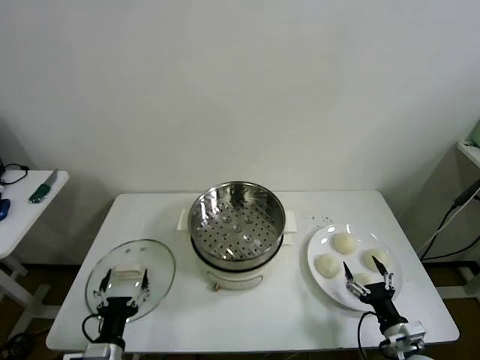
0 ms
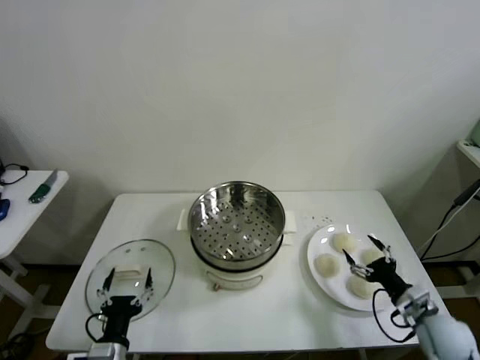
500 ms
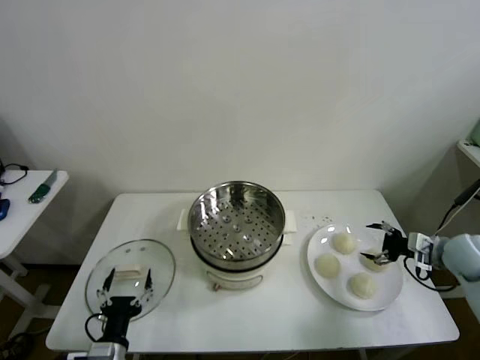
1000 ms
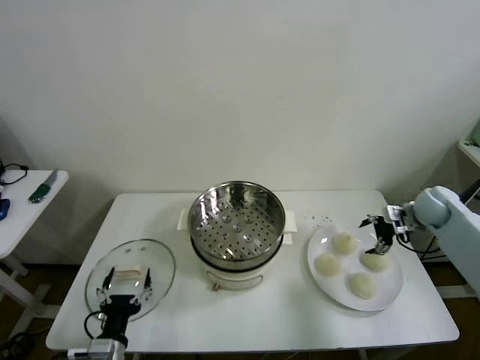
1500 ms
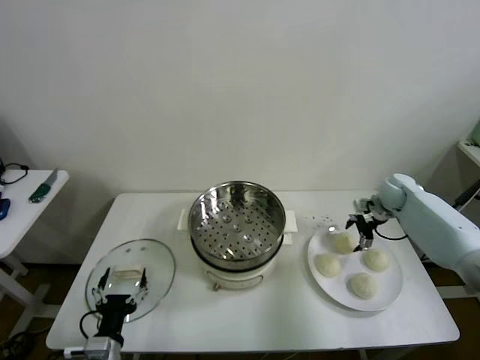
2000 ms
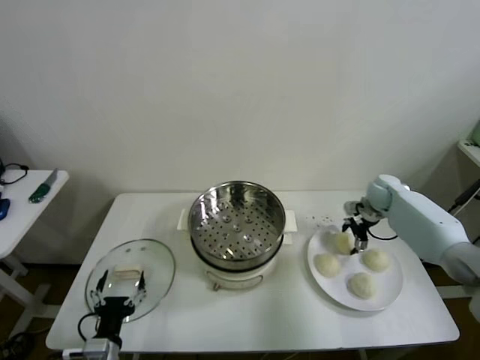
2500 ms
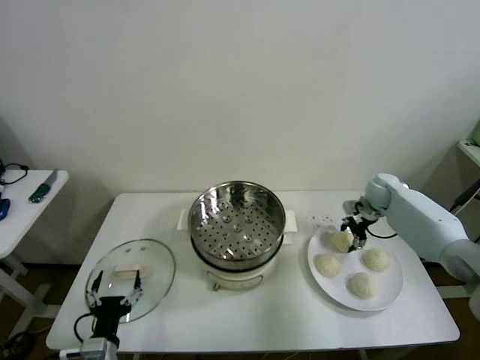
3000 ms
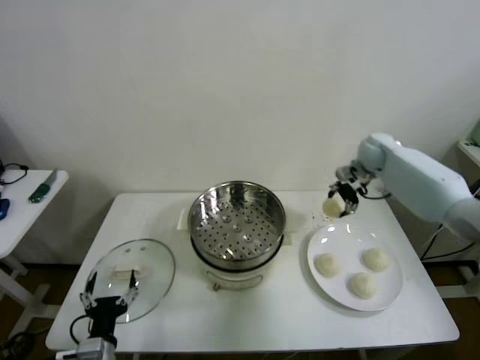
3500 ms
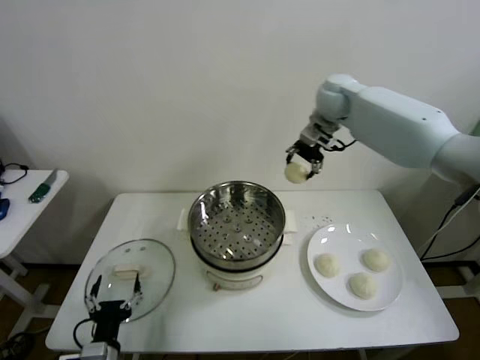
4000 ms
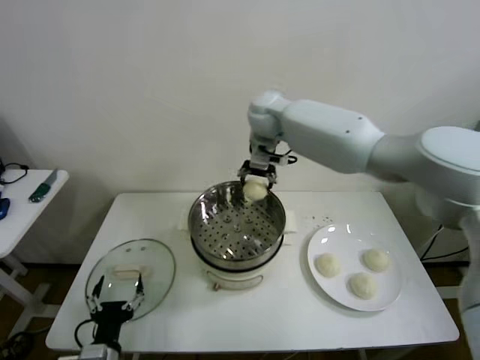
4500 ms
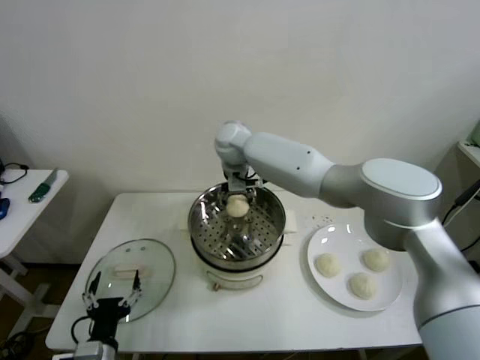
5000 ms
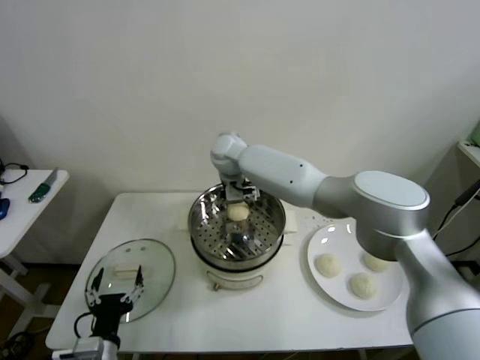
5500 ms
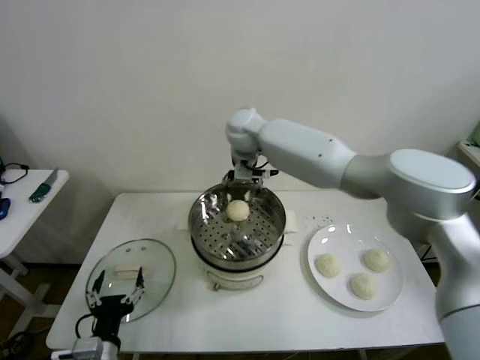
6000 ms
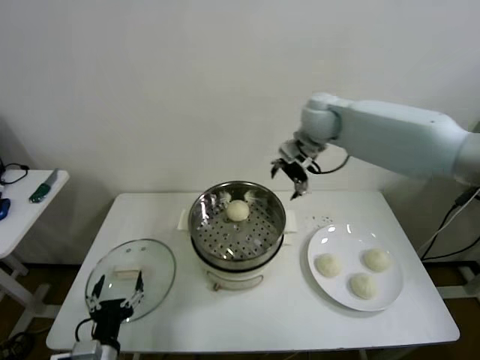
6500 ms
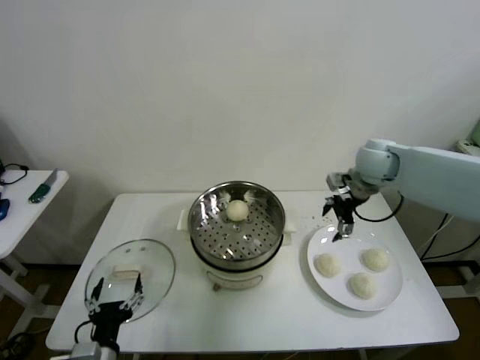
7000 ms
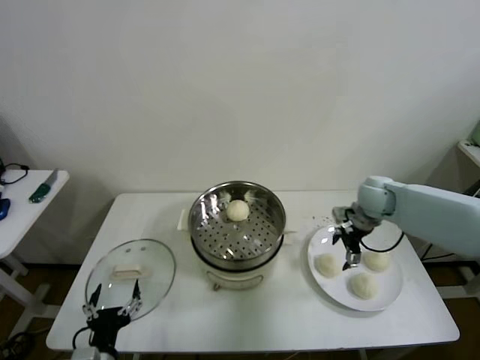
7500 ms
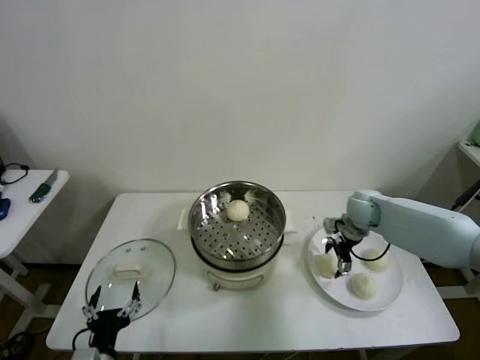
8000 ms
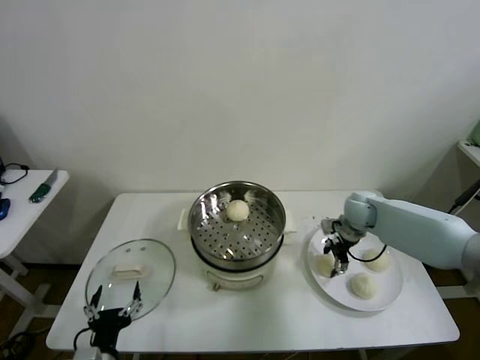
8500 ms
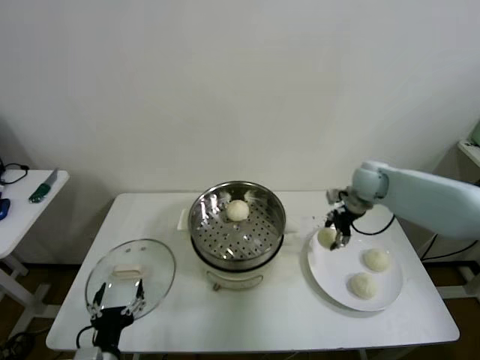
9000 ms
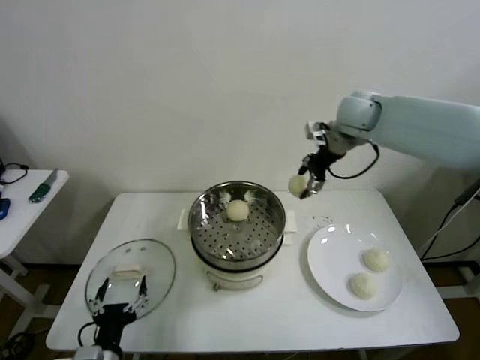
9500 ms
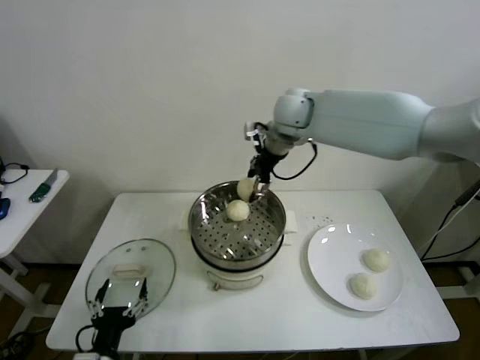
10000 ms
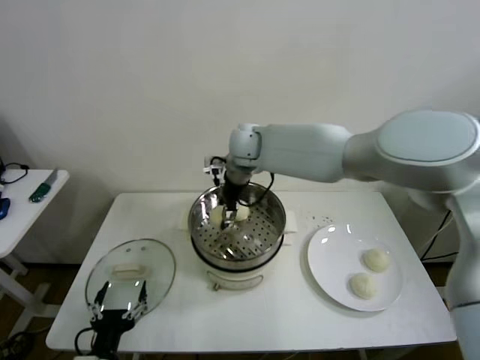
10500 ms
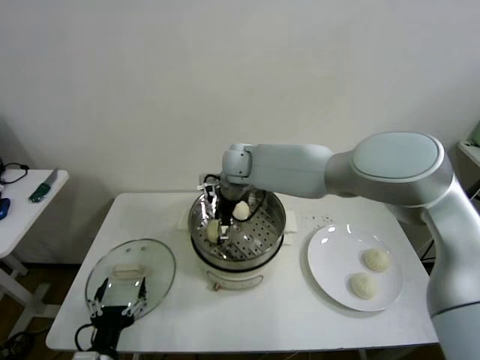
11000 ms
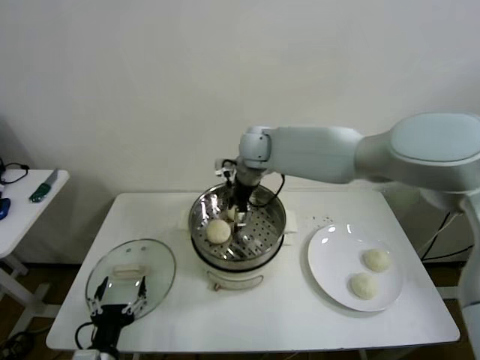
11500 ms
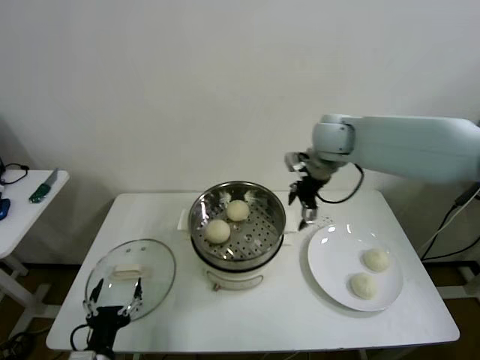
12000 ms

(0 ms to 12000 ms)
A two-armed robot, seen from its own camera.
Step, 0 ms - 2500 ms: Grasp the baozi in the plate with right gripper.
Step, 3000 ms - 5000 ms: Place the baozi on the steamer with right gripper.
Step, 5500 ms - 8000 ms: Grasp the baozi in the plate with right gripper.
Step, 8500 ms - 11000 ms: Place the baozi on the steamer with right gripper.
2000 ms - 4000 ms: The right gripper shifts approximately 35 cm upward and to the left, and closes up.
4000 ms - 6000 ms: The right gripper shifts roughly 15 cm to the left, and opens up.
6000 ms - 8000 ms: The right gripper is displaced to the right and downward by about 35 cm.
8000 ms - 10000 ms: The right gripper moves upward and to the left, roughly 35 cm, and closes up.
10000 ms - 12000 ms: The right gripper moves to the right, some 15 cm, and opens up.

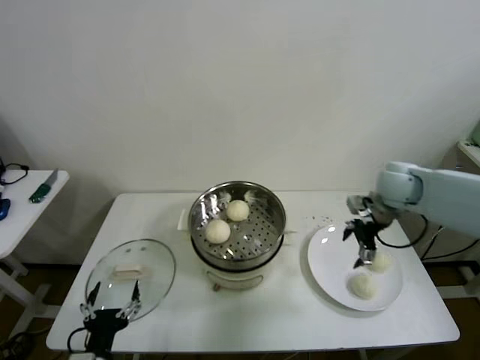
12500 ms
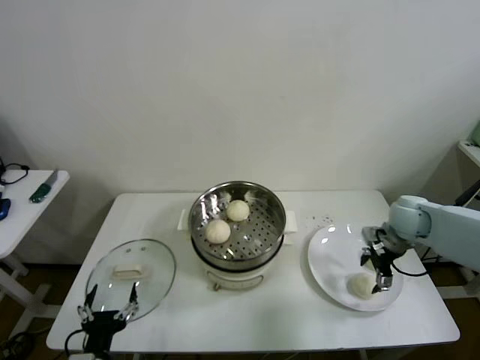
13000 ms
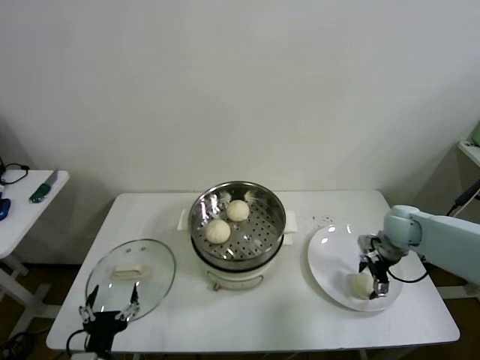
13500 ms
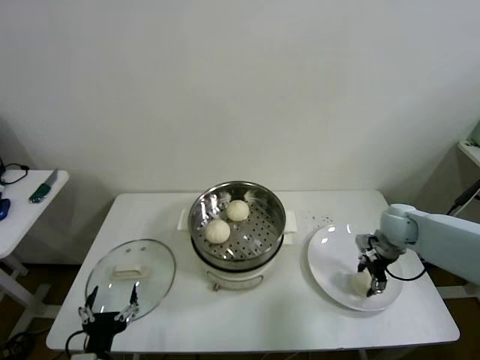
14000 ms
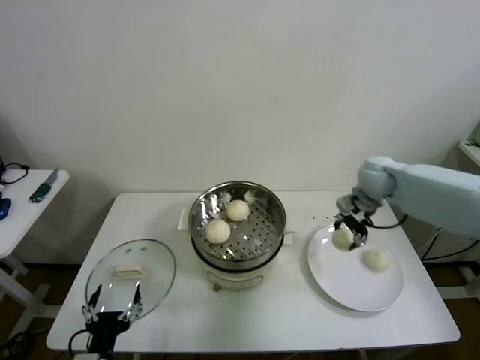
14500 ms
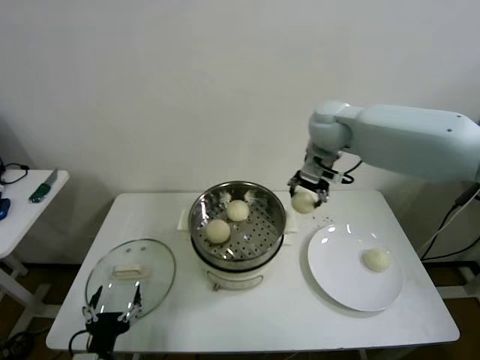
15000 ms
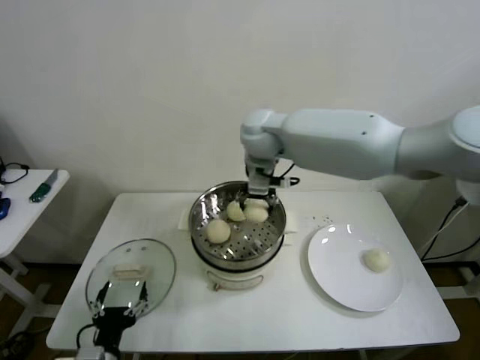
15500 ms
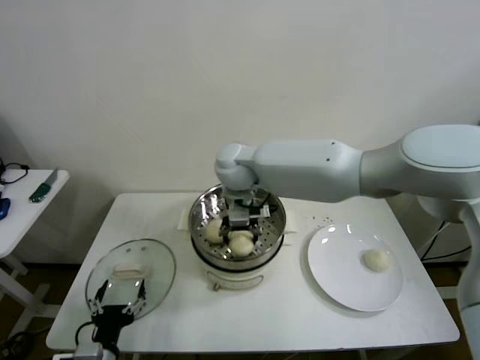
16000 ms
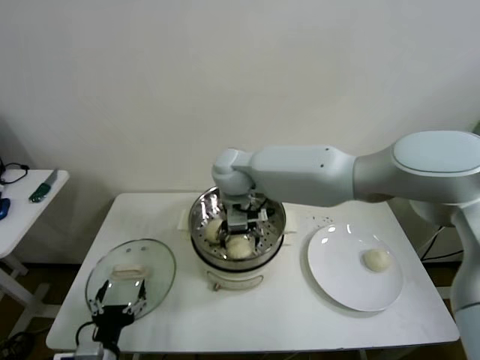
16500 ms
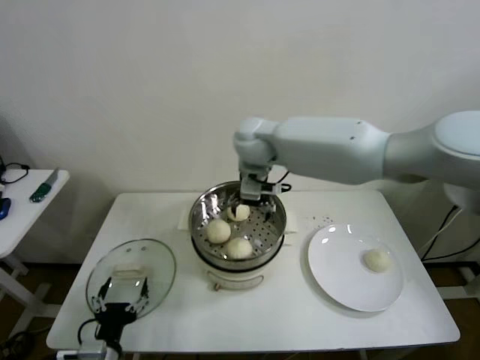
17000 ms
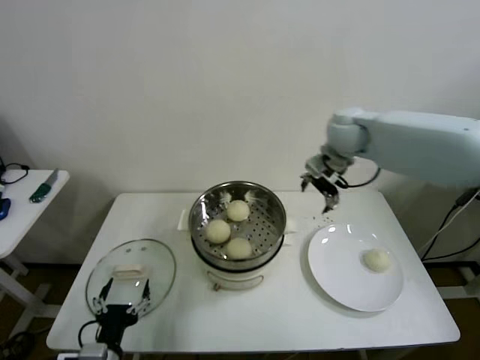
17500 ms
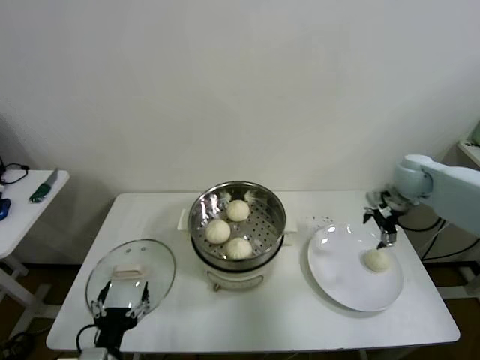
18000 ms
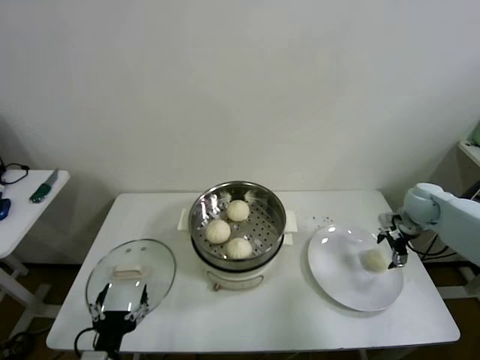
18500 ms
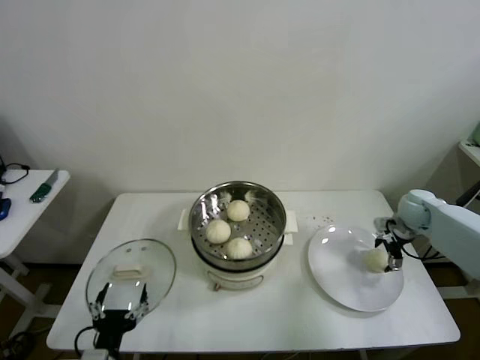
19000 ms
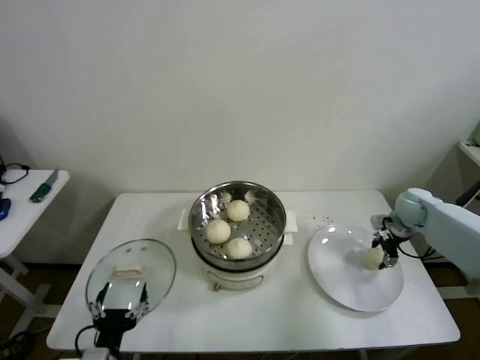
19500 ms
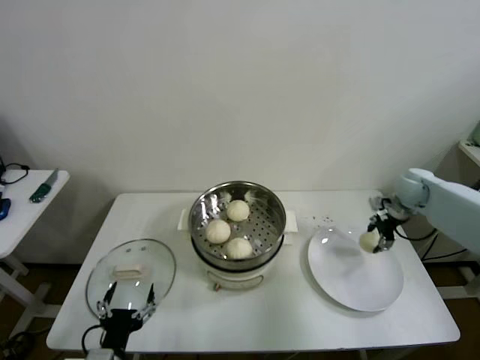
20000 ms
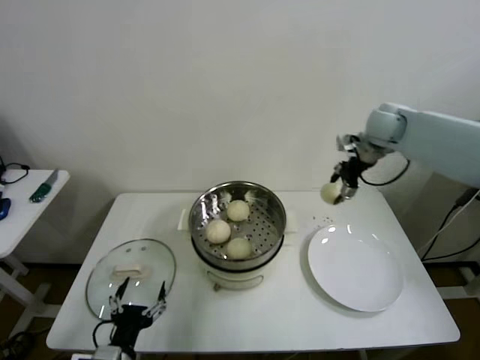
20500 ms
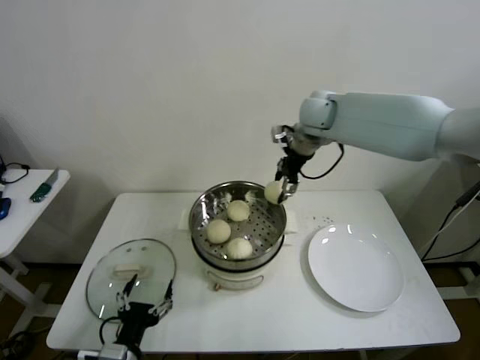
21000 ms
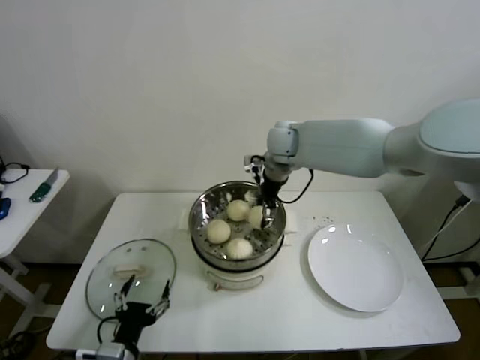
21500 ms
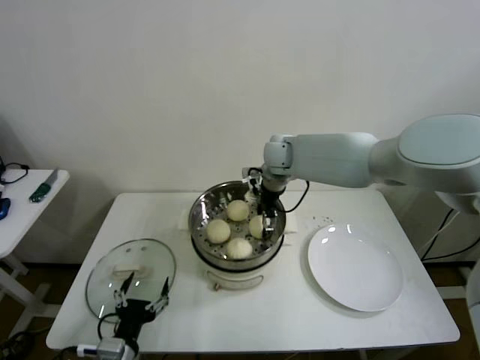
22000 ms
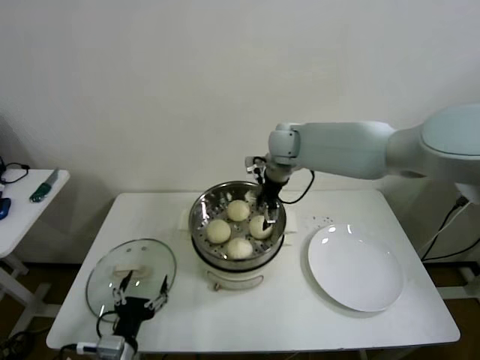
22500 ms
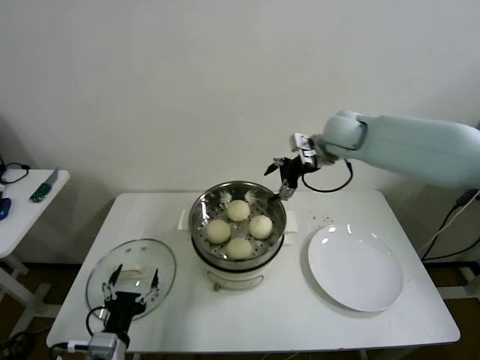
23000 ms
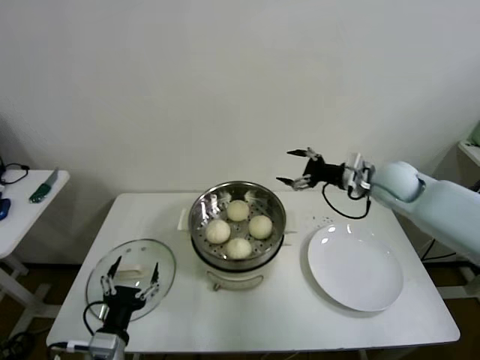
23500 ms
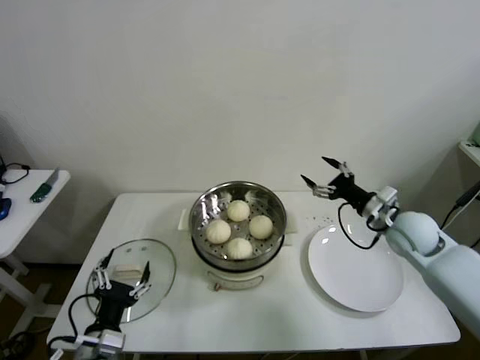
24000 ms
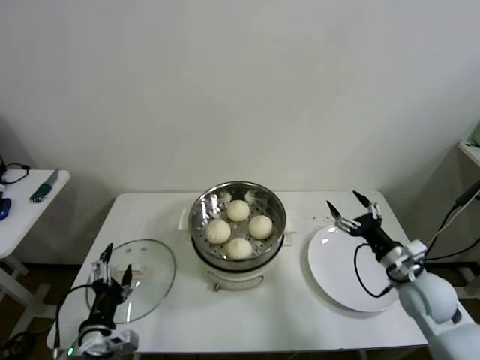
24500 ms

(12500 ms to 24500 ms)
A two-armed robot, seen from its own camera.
Step, 14000 ms - 16500 ms: Place the baozi on the steamer with right gripper.
Step, 17000 ms - 19000 ms: Grasp the baozi in the plate with right gripper.
Step, 20000 ms - 22000 ms: Place the baozi on the steamer with right gripper.
12500 ms - 14500 ms: The right gripper travels forward and to the left by some 10 cm, reaches roughly 10 cm downward, then returns, and closes up.
14500 ms - 16500 ms: The right gripper goes roughly 35 cm to the left, and opens its fingers.
16500 ms - 18500 ms: The right gripper is displaced to the right by approximately 50 cm.
18500 ms - 20500 ms: The right gripper goes approximately 25 cm upward, to the left and forward, and closes its fingers.
20500 ms - 22500 ms: The right gripper shifts about 20 cm to the left, and opens.
22500 ms - 24500 ms: The right gripper moves backward, to the right and downward, some 40 cm.

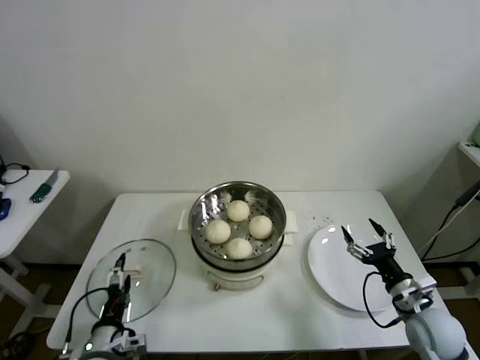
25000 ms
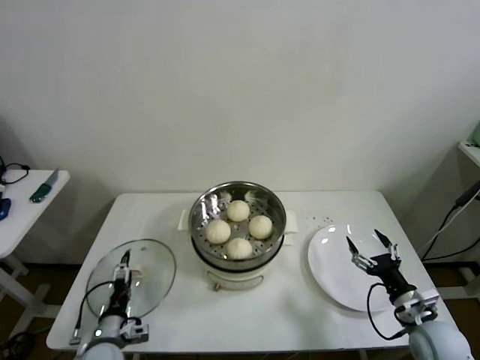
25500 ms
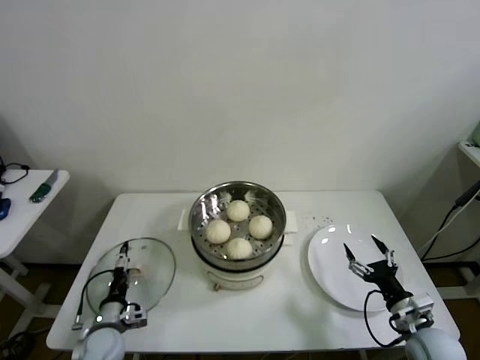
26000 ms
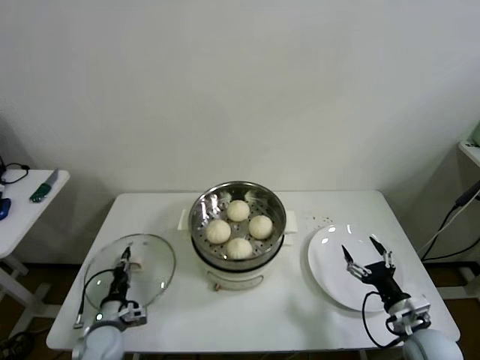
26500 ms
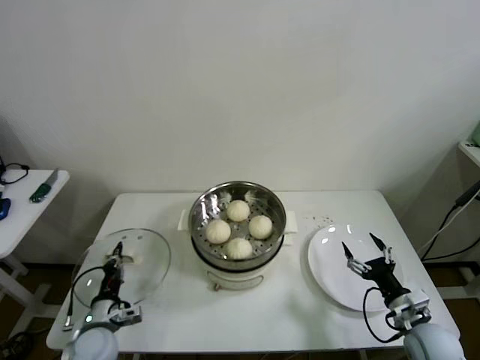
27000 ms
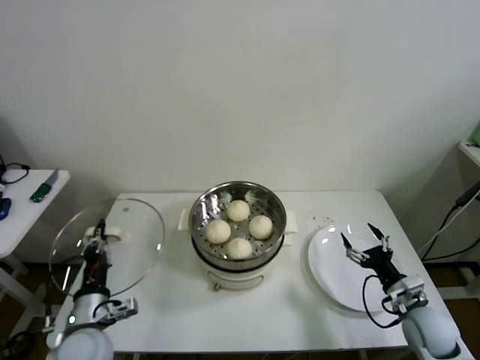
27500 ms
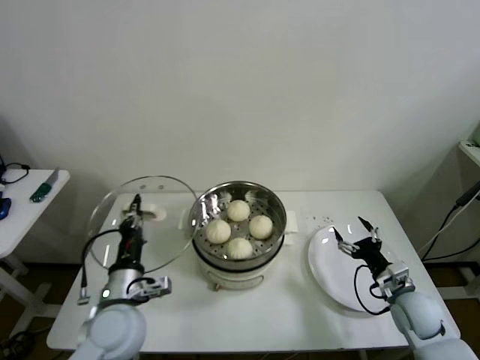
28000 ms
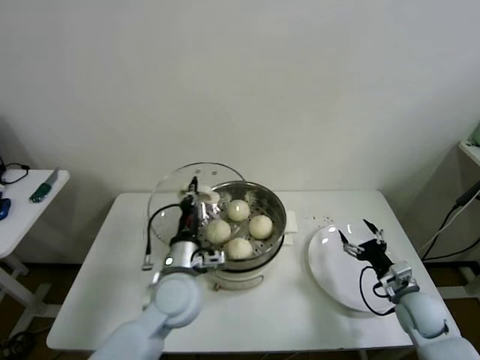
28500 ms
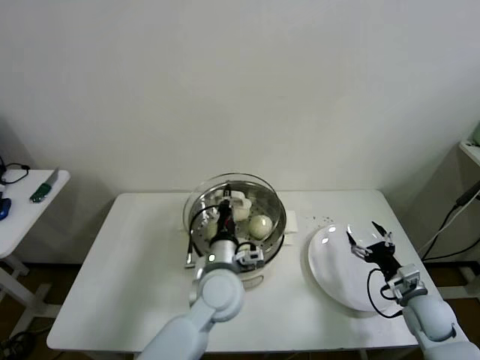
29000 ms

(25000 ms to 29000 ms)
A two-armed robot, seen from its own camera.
25000 ms - 27000 ms: The left gripper heads forward, covering approximately 5 cm, and closes.
27000 ms - 29000 ms: The left gripper moves to the right and upward, about 30 cm, while the right gripper moves forward, roughly 5 cm.
